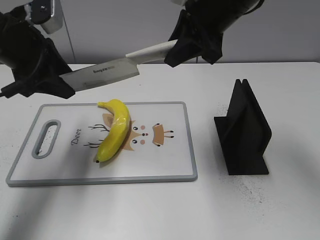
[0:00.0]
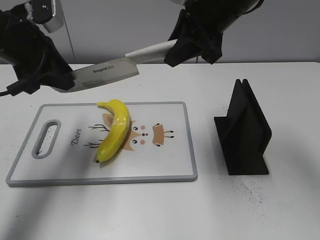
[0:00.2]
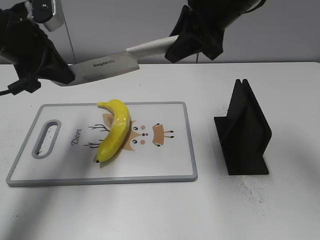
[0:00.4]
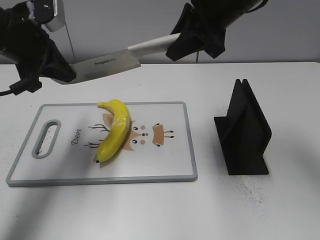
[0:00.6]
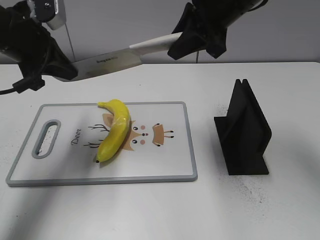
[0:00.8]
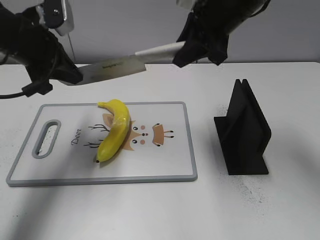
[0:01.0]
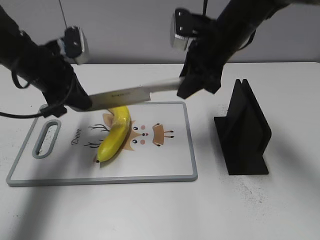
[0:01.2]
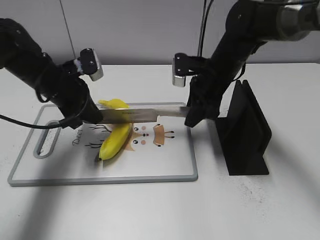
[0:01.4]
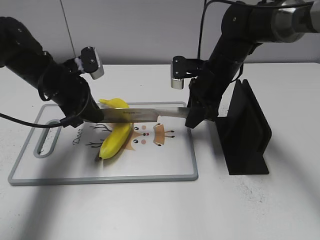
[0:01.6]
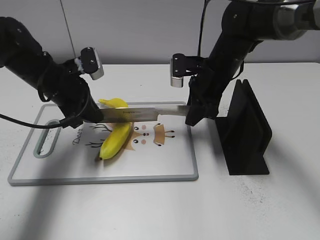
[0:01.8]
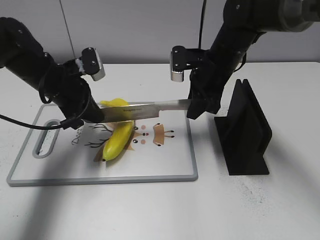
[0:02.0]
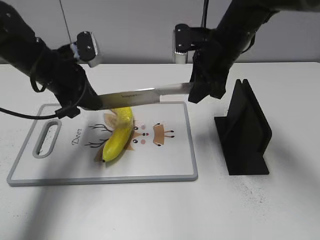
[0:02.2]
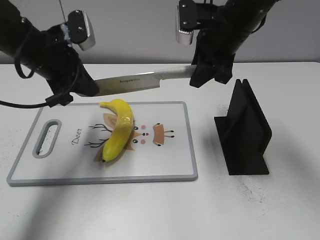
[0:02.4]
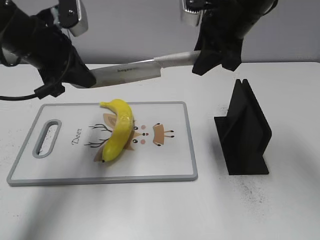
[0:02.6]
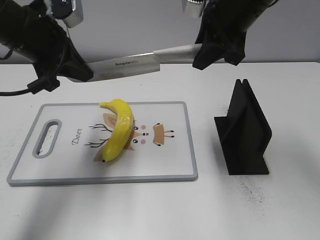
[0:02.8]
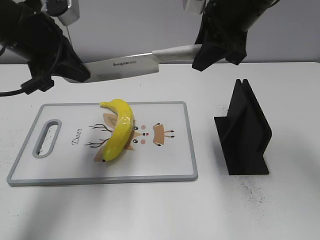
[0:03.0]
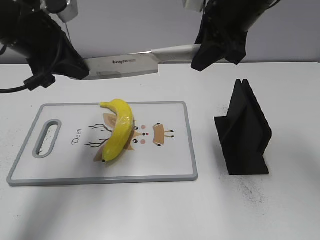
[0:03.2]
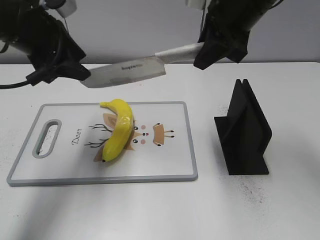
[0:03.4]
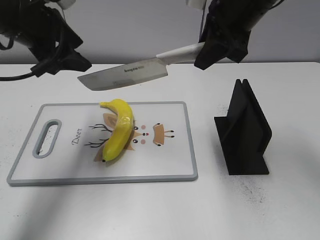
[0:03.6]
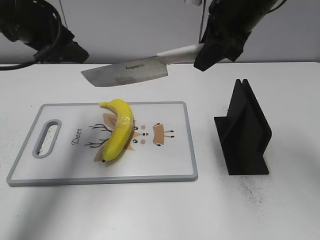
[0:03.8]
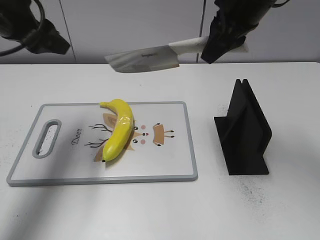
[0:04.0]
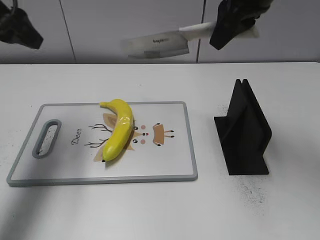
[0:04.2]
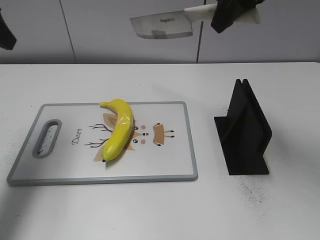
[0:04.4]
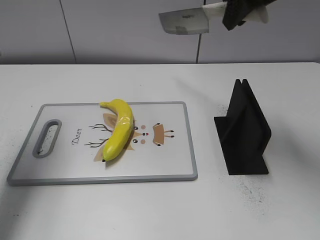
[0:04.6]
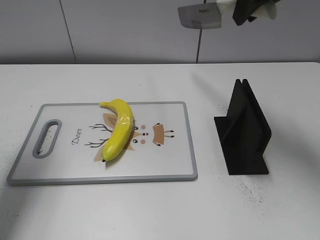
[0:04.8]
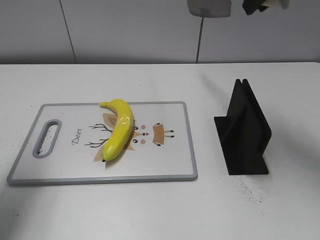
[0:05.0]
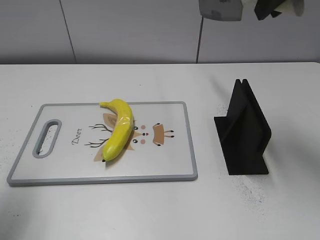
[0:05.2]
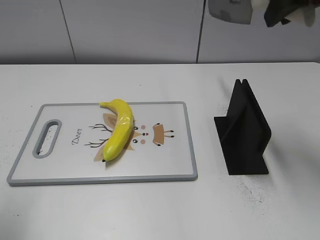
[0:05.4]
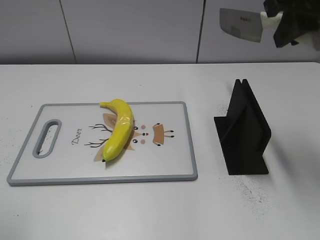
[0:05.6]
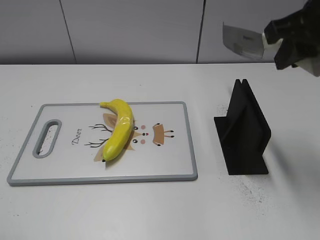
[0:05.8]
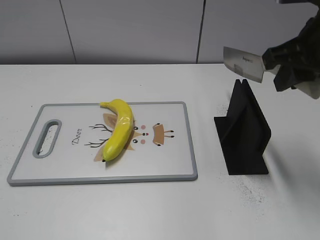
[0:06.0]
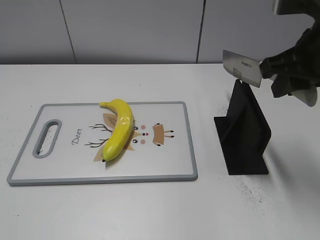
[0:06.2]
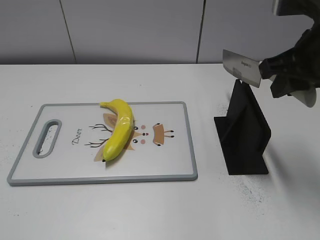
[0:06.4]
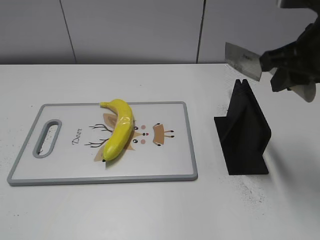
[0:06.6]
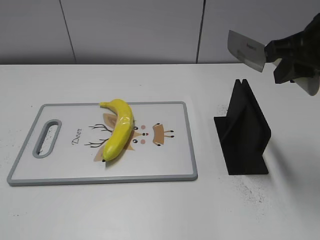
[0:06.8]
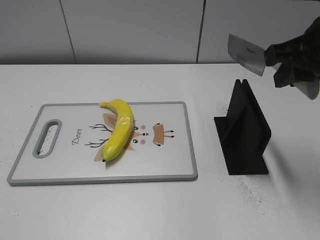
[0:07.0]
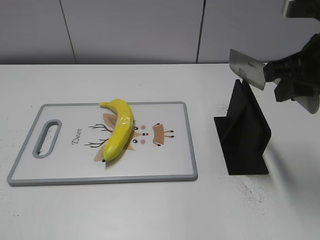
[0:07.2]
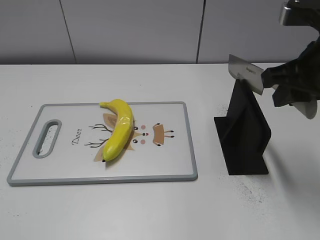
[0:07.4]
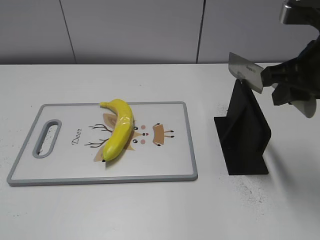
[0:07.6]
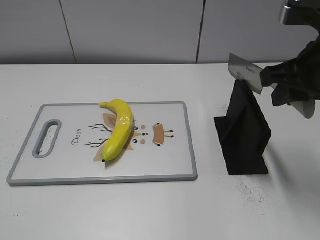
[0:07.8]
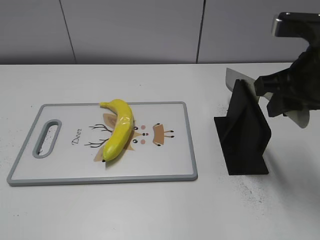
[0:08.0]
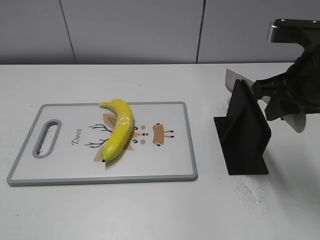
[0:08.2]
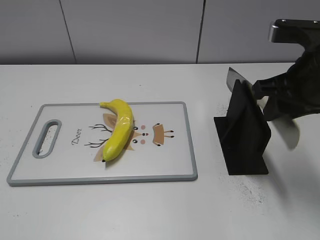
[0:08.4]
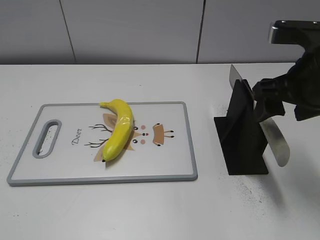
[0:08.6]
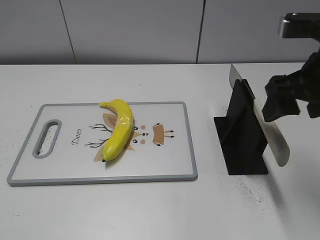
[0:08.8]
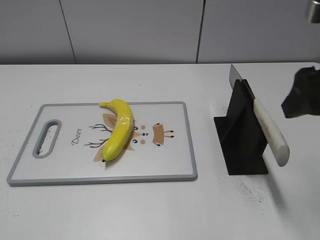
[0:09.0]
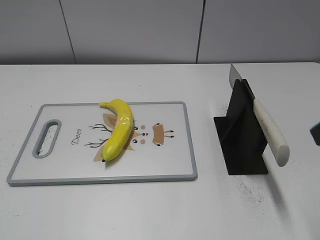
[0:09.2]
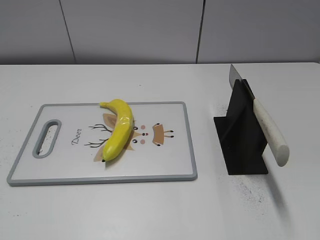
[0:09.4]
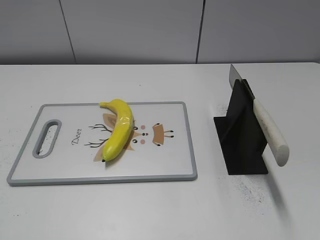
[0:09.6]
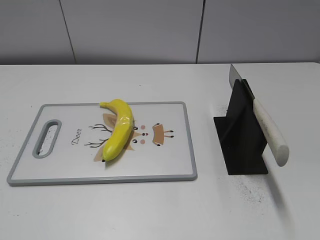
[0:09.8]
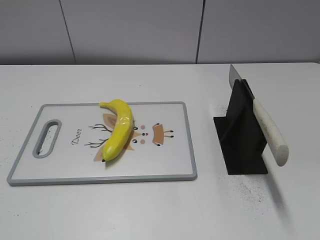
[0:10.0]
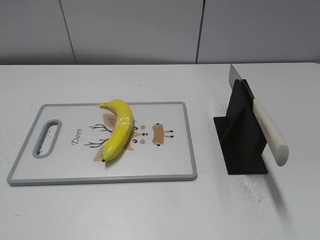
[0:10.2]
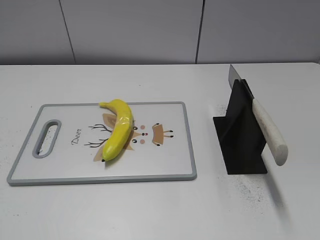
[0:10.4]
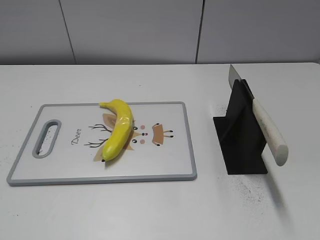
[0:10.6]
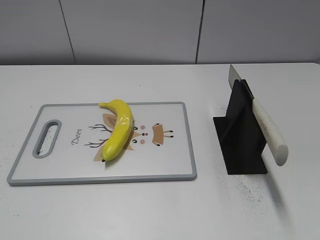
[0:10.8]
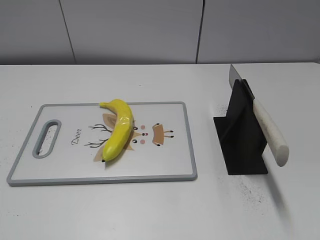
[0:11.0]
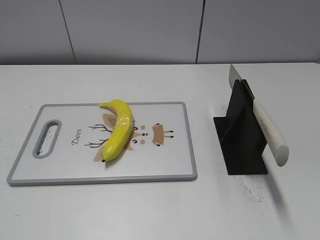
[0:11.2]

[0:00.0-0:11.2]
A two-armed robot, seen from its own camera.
Task of the whole recording: cut plastic banana.
Step, 0:00.0 to 0:02.6: Lift the knife with your right hand.
Step, 0:02.8 to 0:04.0: Cut the banana with your right hand.
Step, 0:04.2 to 0:06.0: Lift the knife with your right hand.
Step, 0:06.2 to 0:11.2: Place the knife on the storage rack with your right hand.
0:00.0 to 0:01.6: The grippers both shift downward by roughly 15 cm. The left gripper closes up.
0:01.6 to 0:03.2: Both grippers move upward, about 15 cm.
0:03.2 to 0:04.8: The left gripper travels to the left and upward by some 10 cm, and opens up, while the right gripper is displaced upward by some 5 cm.
0:04.8 to 0:06.4: The right gripper heads backward and downward, covering approximately 15 cm. Meanwhile the left gripper goes approximately 30 cm backward.
0:06.4 to 0:08.0: The grippers stay close to where they were, moving slightly.
0:08.0 to 0:09.6: The right gripper moves backward and to the right, about 20 cm, and opens.
